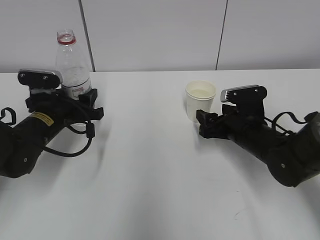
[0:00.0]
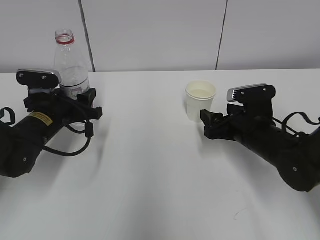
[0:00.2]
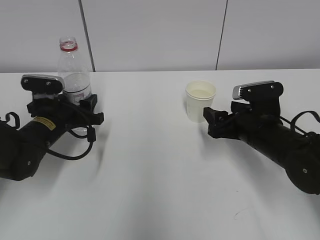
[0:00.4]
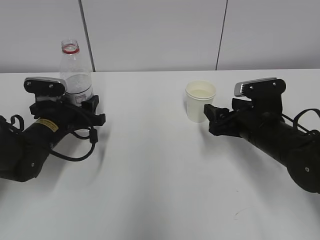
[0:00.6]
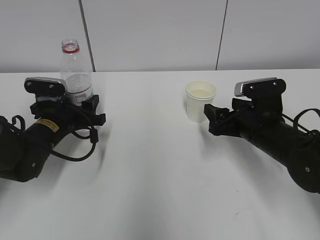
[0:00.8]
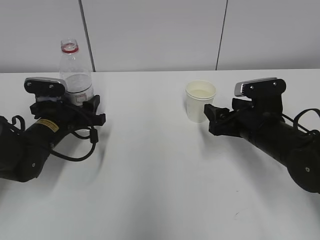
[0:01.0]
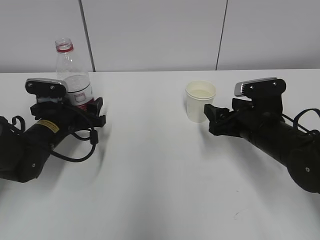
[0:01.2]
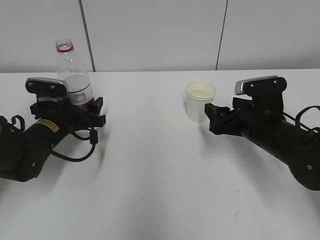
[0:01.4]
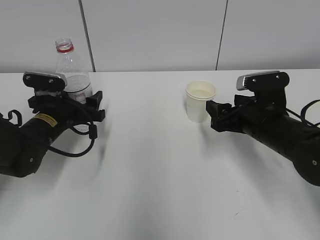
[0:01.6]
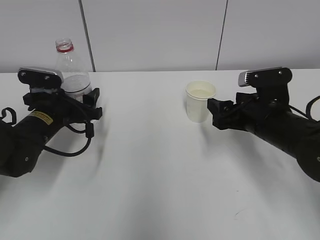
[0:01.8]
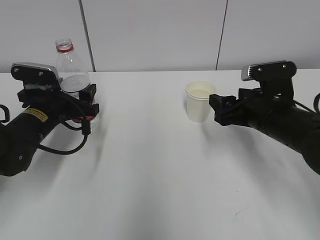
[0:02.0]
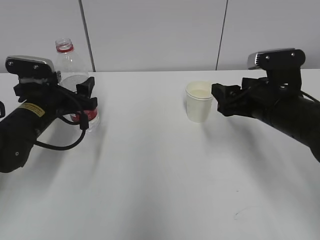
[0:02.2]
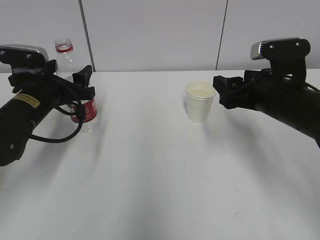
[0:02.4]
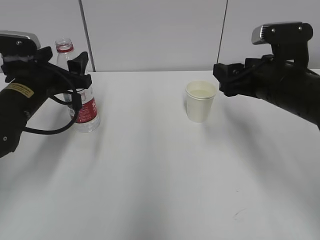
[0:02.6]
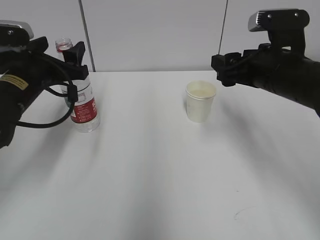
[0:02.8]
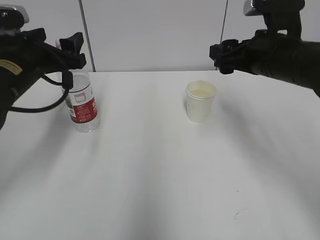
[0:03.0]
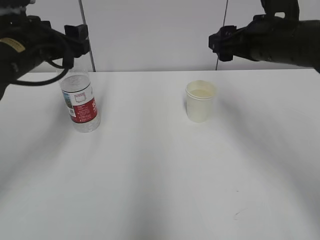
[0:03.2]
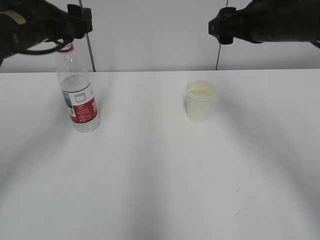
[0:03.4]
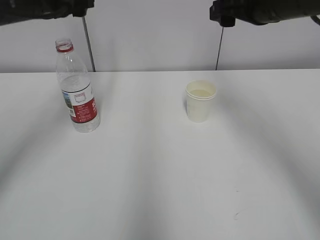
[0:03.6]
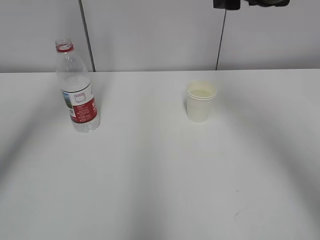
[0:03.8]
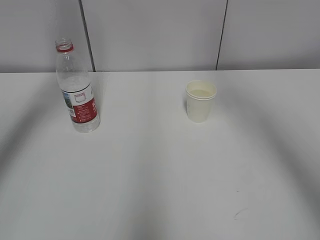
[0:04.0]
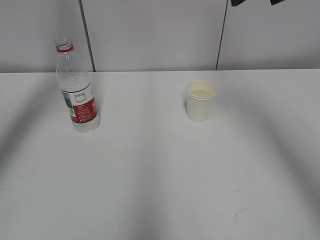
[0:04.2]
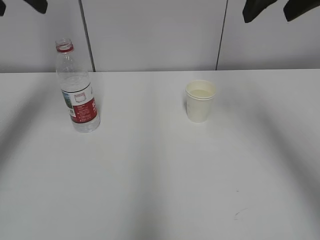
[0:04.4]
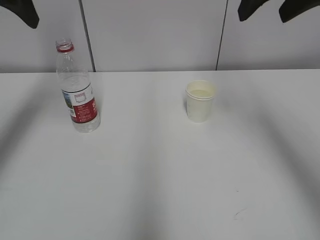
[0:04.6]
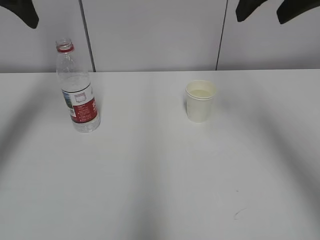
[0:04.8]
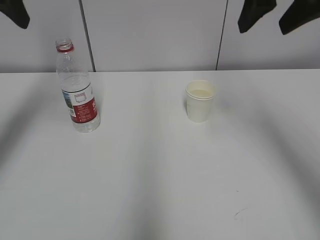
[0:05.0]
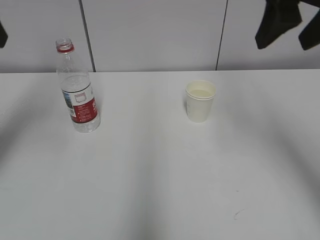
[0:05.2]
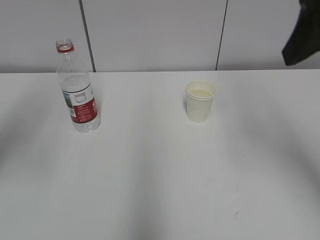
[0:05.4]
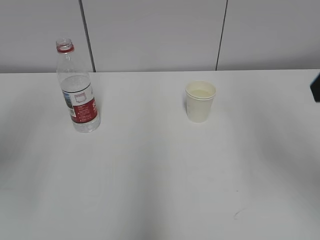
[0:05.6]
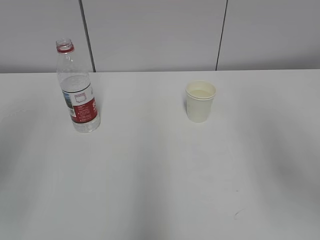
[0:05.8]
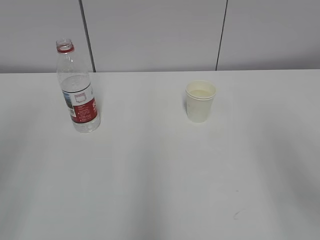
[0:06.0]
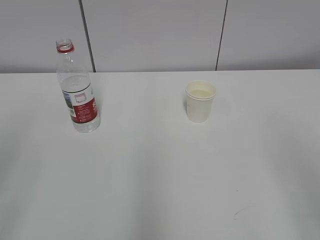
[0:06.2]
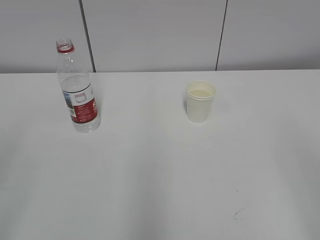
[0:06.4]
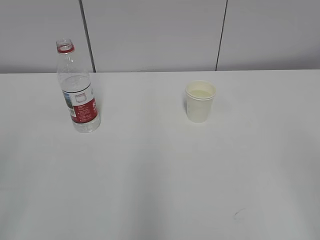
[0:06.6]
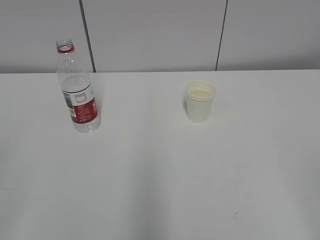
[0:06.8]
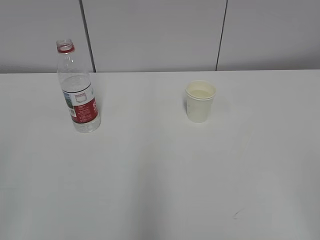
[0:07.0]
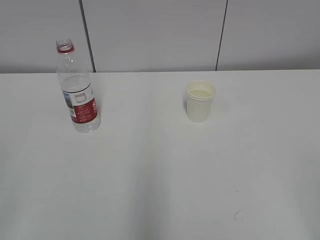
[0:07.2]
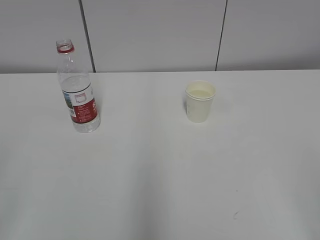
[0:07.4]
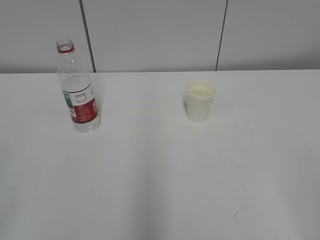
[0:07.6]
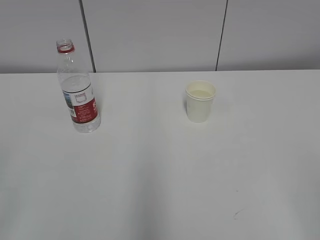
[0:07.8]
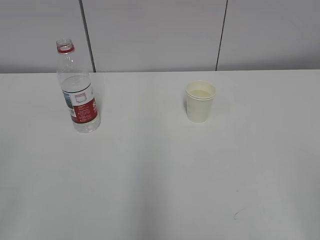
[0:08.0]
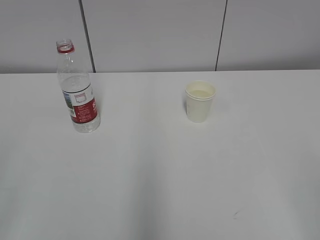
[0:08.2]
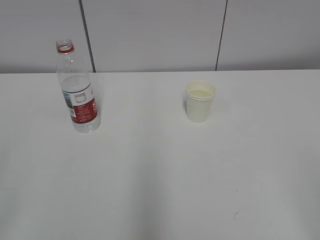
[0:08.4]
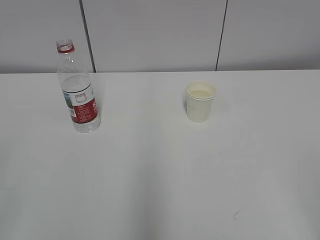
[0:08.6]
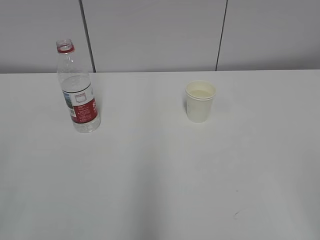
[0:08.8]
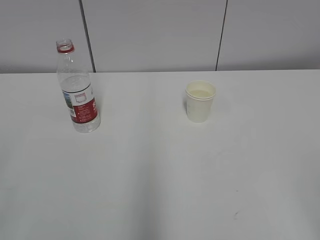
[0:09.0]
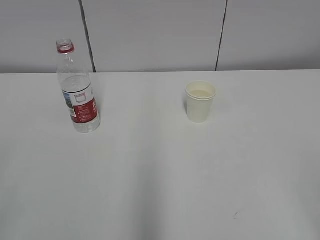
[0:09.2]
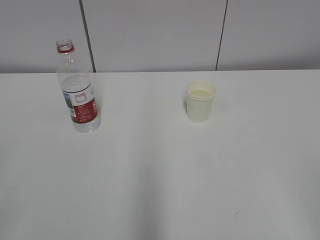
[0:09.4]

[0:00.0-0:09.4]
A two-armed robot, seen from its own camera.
0:00.0 to 0:01.6: The left gripper opens its fingers; the right gripper moves upward, about 5 cm.
0:01.6 to 0:03.2: The two grippers go roughly 15 cm upward.
0:03.2 to 0:04.8: The two grippers go about 15 cm upward.
0:04.8 to 0:06.2: Both grippers travel together backward, roughly 25 cm.
